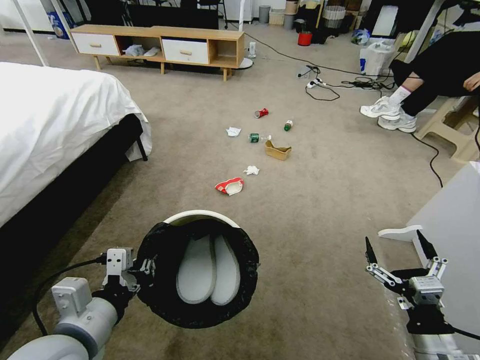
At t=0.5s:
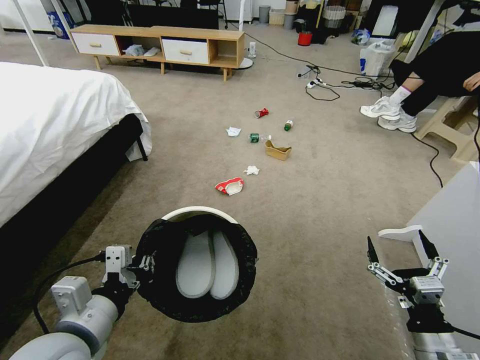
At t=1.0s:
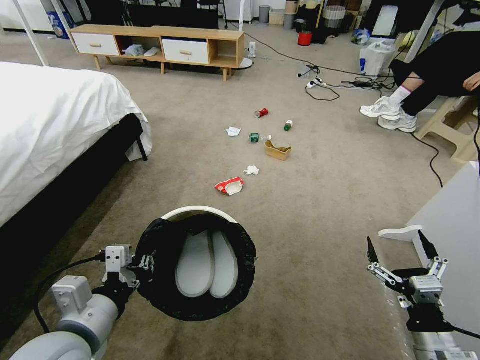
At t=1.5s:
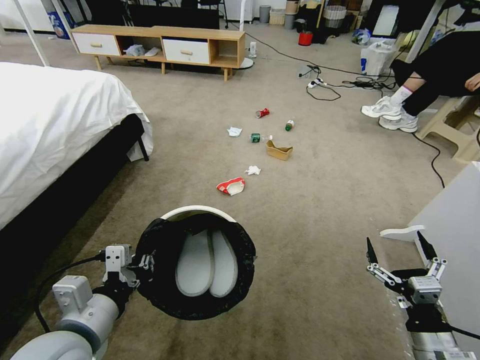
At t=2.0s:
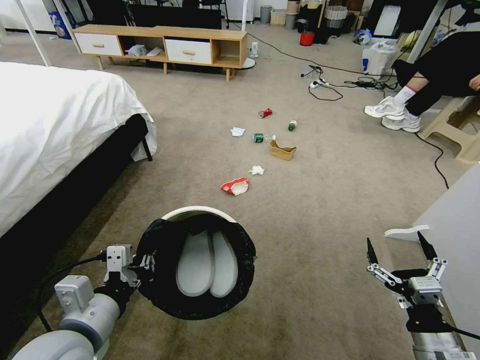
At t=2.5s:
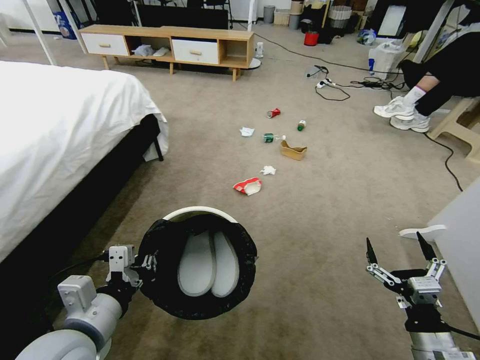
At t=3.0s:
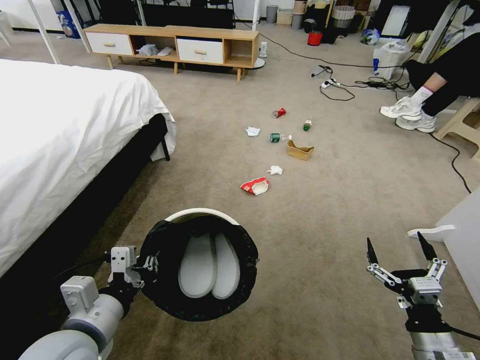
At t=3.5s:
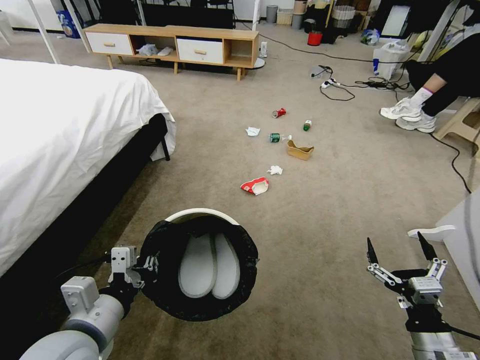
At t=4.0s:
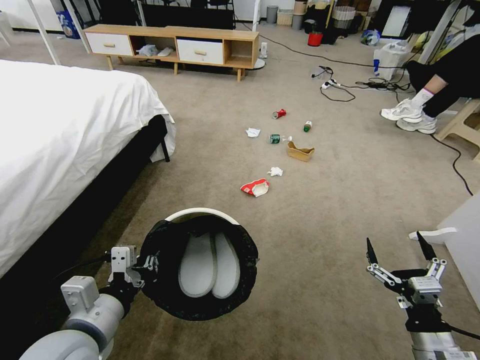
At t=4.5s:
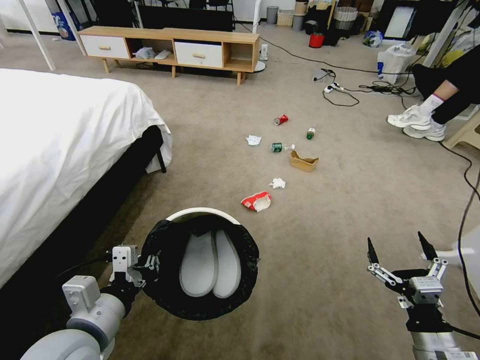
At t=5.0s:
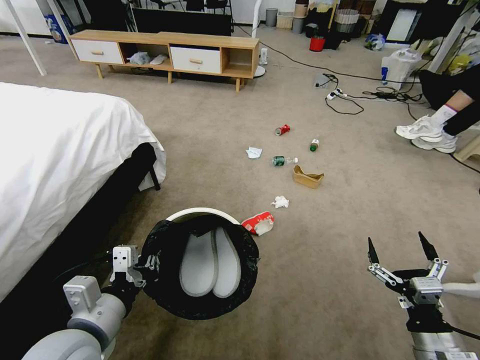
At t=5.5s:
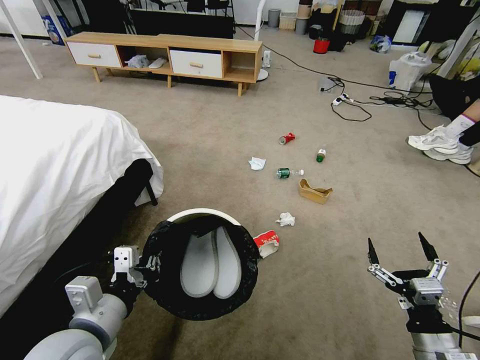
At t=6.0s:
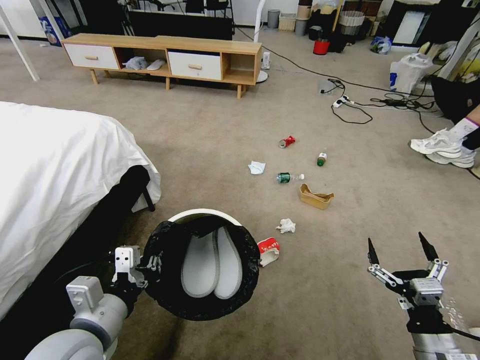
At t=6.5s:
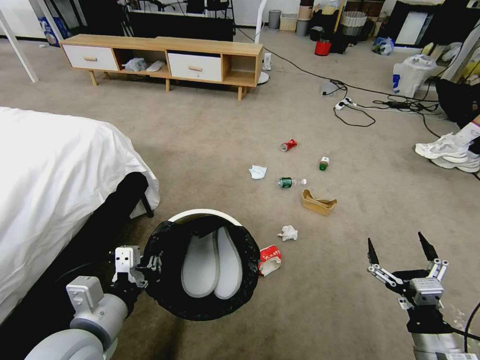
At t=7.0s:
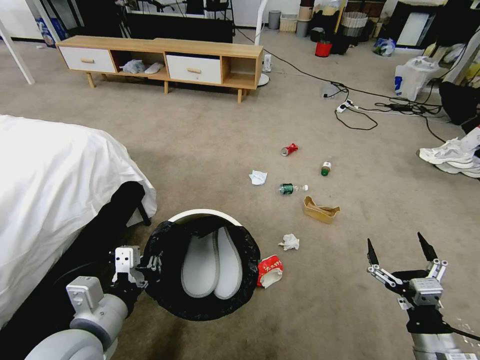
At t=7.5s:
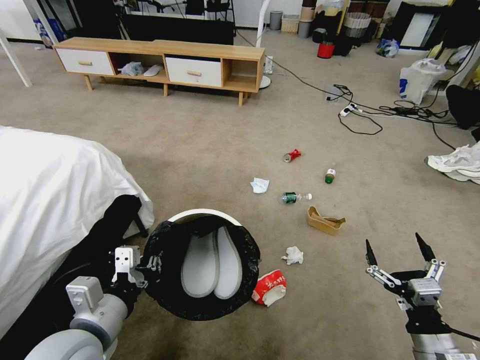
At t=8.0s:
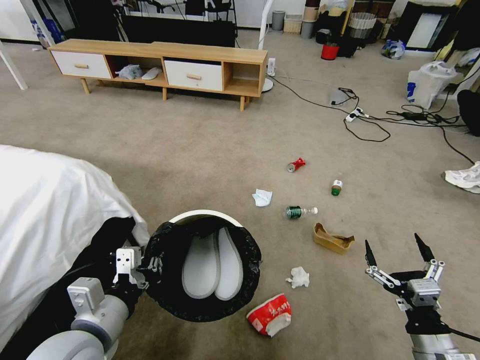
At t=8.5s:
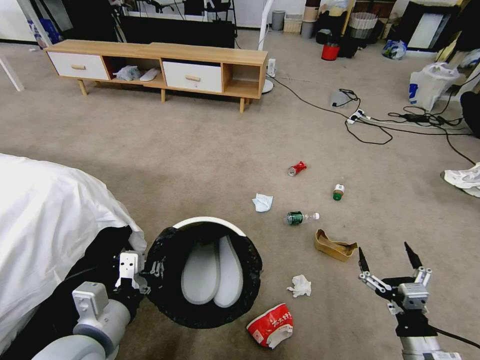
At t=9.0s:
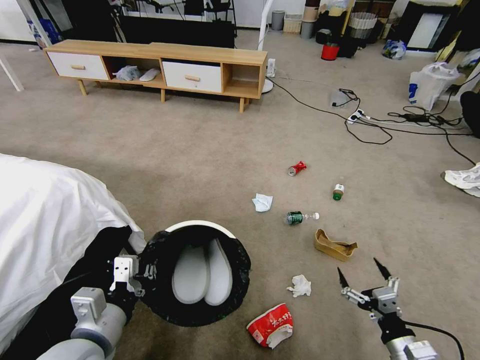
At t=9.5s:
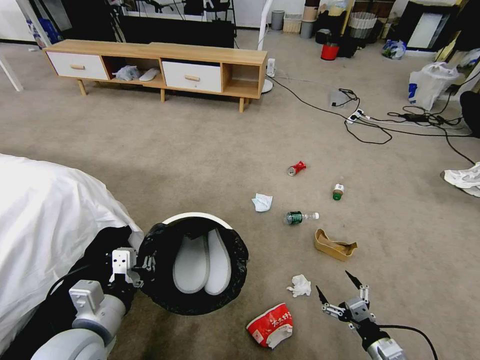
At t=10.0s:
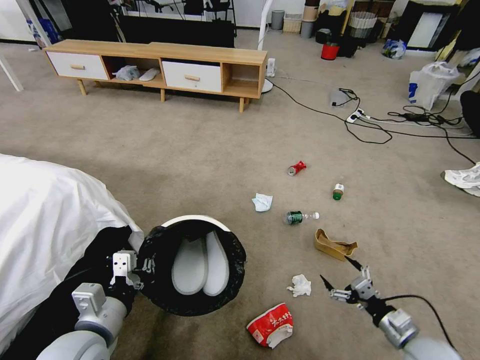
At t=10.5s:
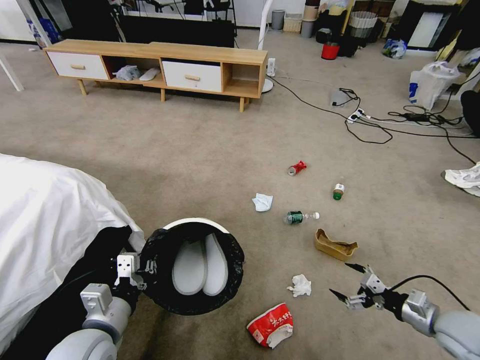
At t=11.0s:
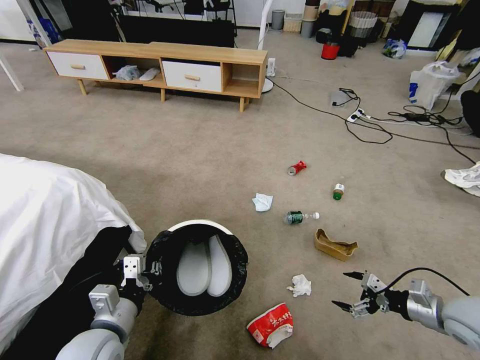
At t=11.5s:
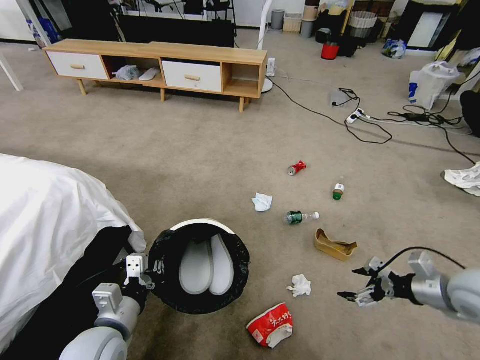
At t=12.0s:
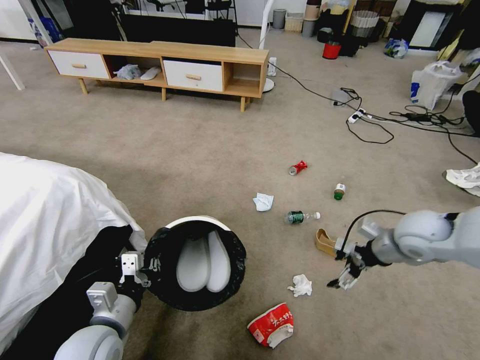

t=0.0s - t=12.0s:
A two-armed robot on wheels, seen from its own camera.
Task of the whole recording: Pick up the trash bin and place the garbage on the floor into it.
t=8.0s - t=10.0s: The left gripper ends up some 5 cm from where it was; the right gripper travels downward, forward and to the right by roughly 10 cm.
t=10.0s - t=12.0s: The right gripper shifts roughly 30 cm upward and forward.

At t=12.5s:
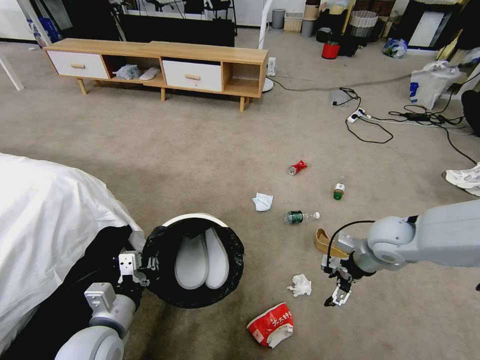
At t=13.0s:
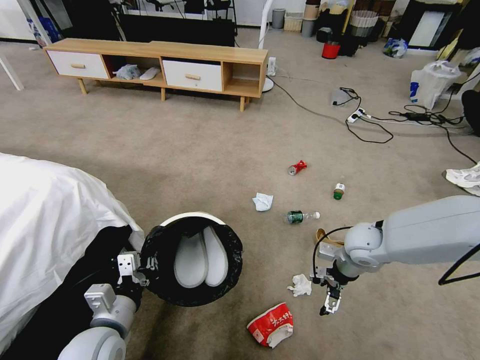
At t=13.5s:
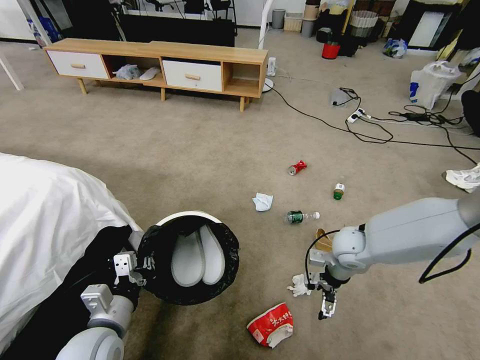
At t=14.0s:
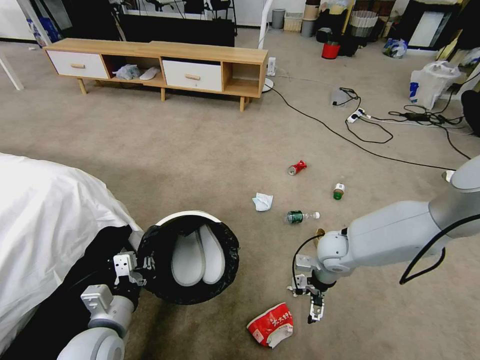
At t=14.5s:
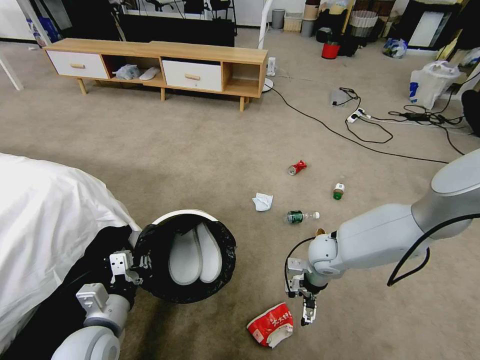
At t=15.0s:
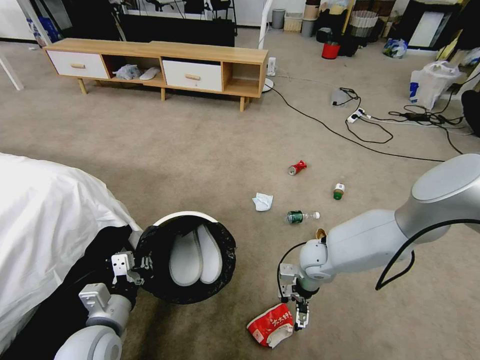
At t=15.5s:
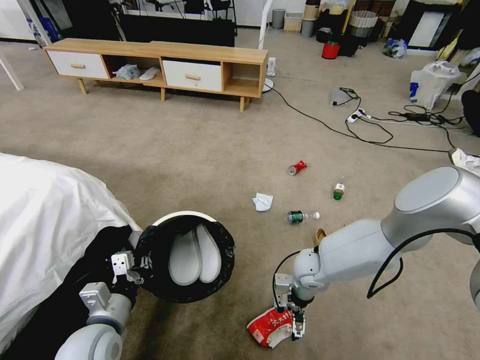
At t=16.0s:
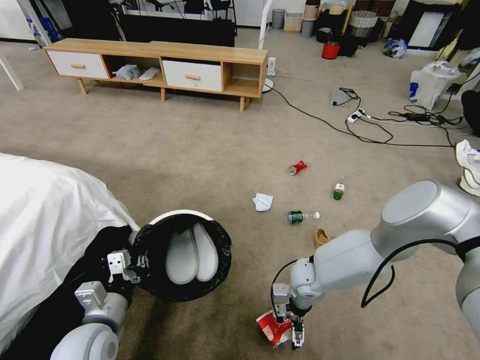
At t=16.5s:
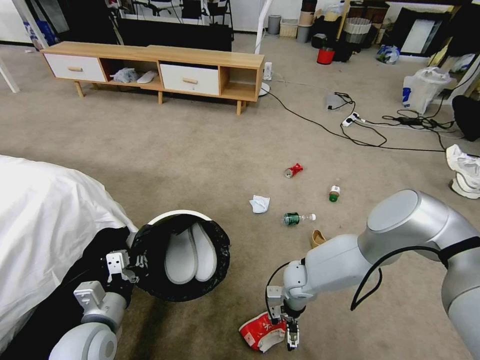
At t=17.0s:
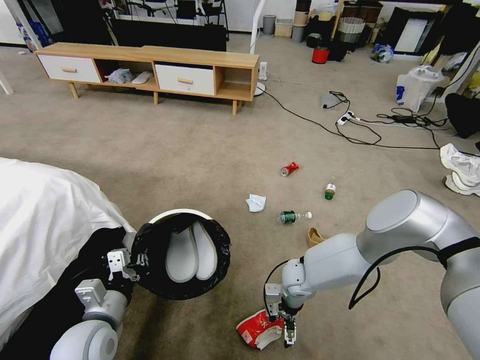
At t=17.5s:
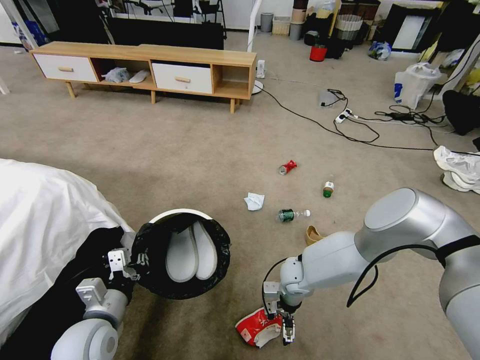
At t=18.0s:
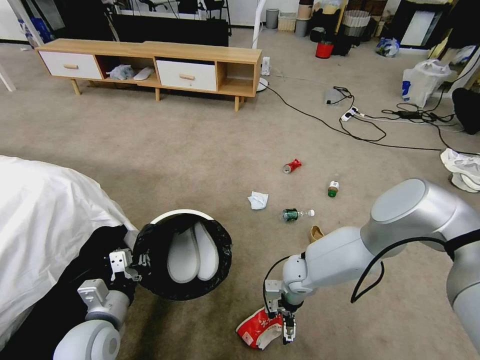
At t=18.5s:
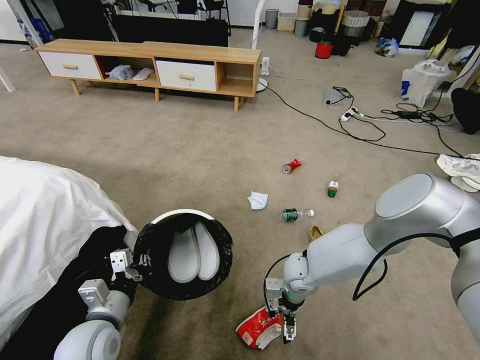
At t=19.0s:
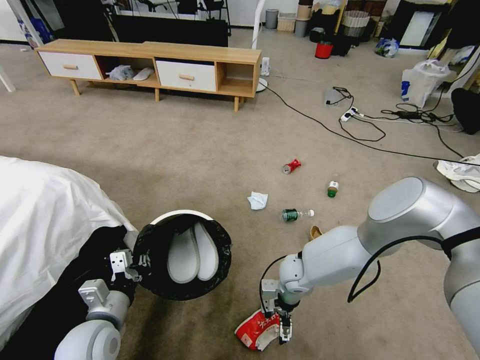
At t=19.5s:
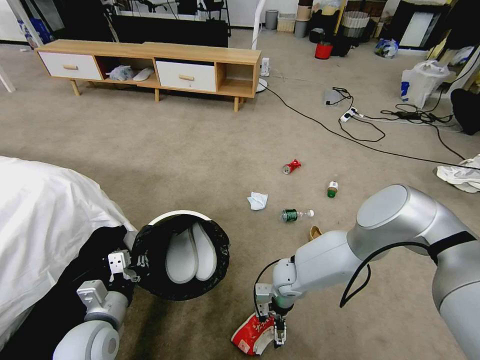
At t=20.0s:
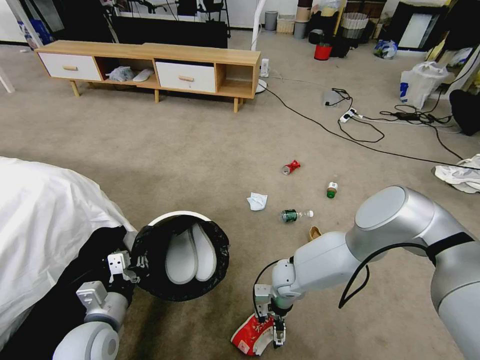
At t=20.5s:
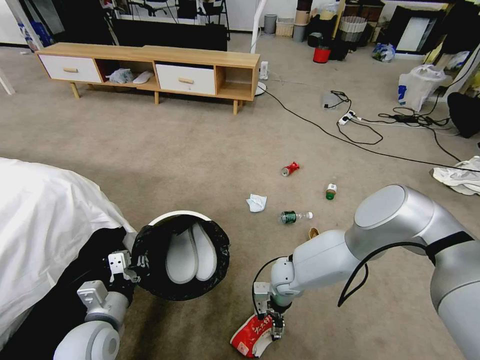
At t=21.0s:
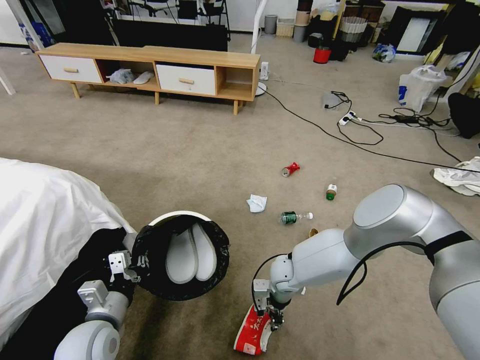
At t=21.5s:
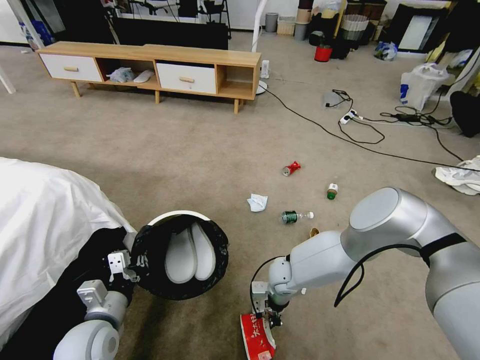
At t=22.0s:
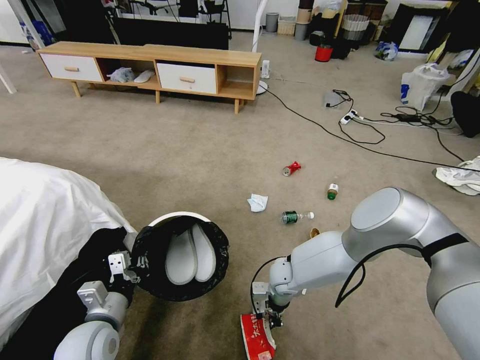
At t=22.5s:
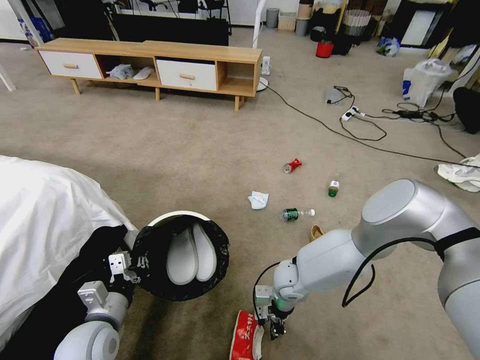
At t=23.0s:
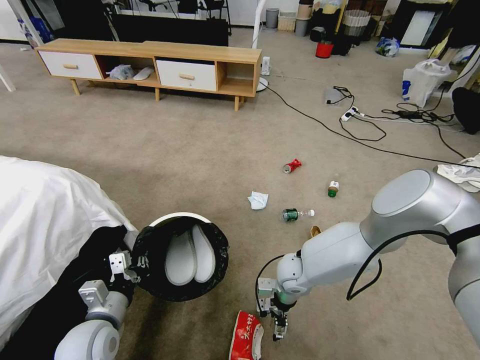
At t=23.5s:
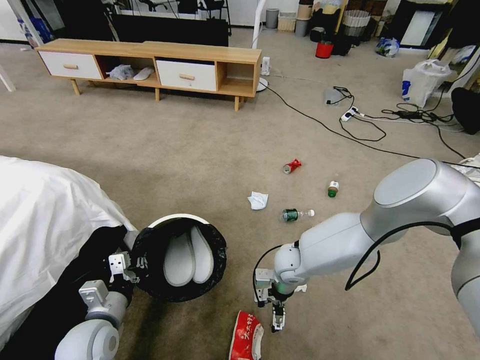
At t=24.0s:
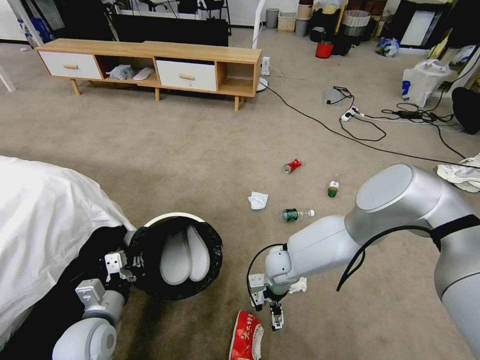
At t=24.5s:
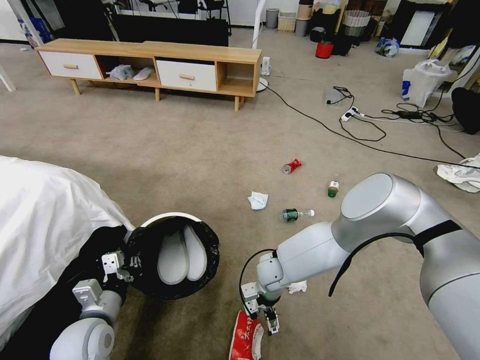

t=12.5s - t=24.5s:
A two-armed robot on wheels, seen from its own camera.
Task of the whole recording: Pick up the trash bin and place the garbage on the floor into it.
t=12.5s - t=14.5s: The right gripper shifts some 15 cm to the left and downward.
t=14.5s - t=16.5s: The right gripper travels downward and to the left by about 10 cm.
t=20.5s - t=22.5s: The right gripper closes.
t=22.5s - t=24.5s: The right gripper ends up roughly 5 cm from where it was, and opens.

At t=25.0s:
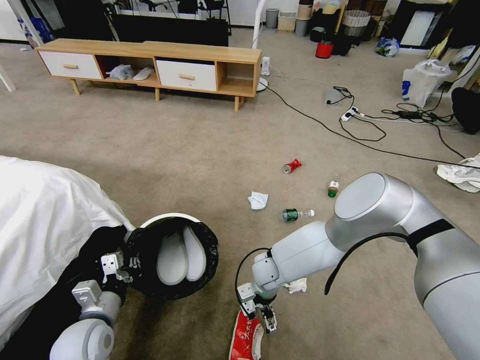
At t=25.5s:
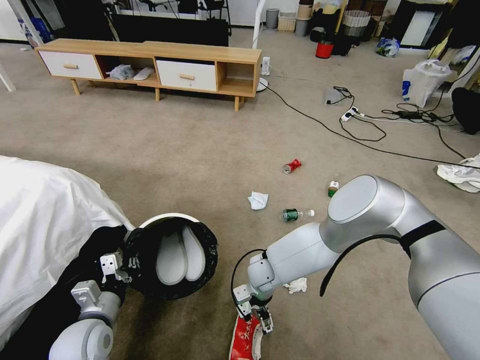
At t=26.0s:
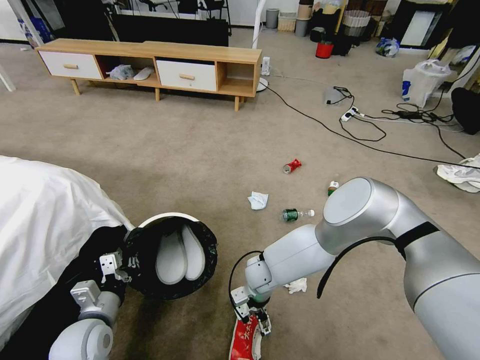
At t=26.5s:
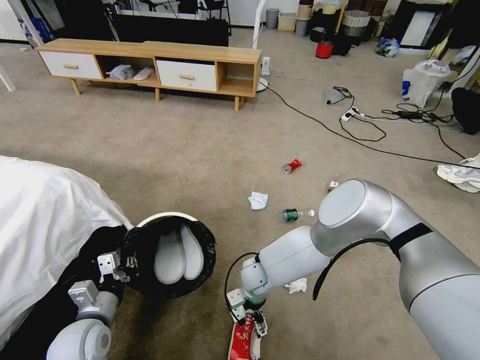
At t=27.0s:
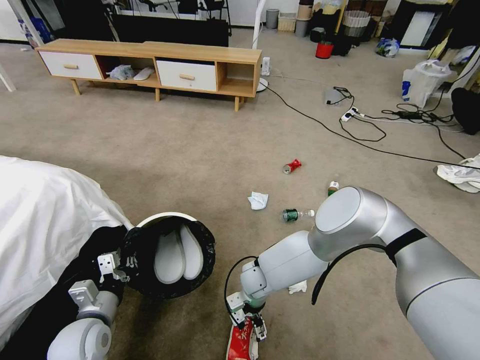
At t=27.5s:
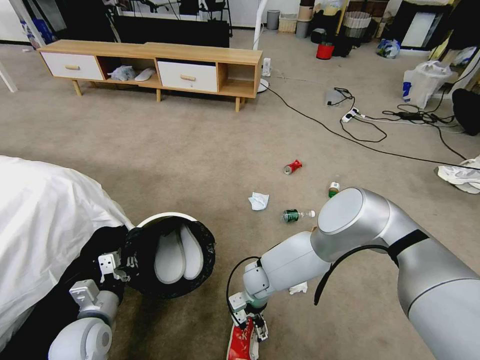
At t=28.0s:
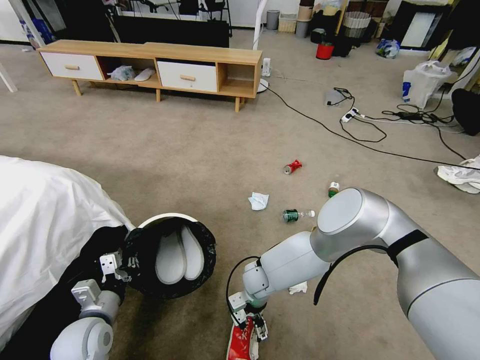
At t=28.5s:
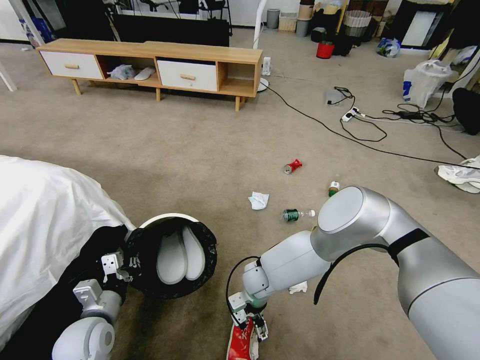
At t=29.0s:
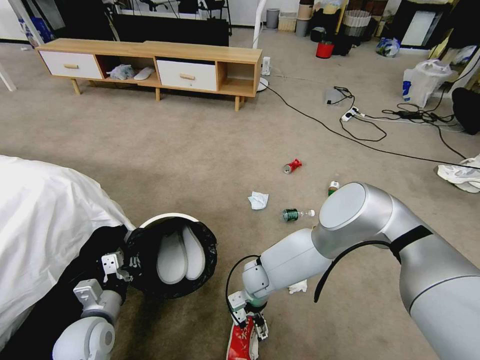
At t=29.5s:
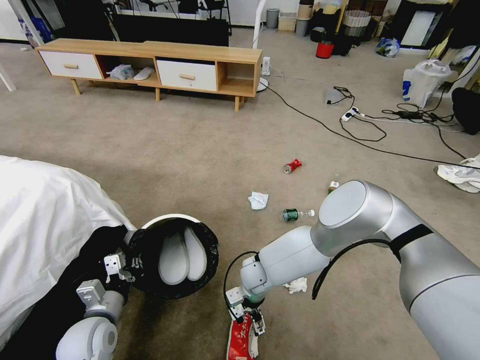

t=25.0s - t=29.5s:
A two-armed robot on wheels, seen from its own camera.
Task of the whole recording: Pick up the trash bin and place the garbage on the floor into it.
t=25.0s - t=29.5s: The grippers stay close to where they were, moving slightly.
